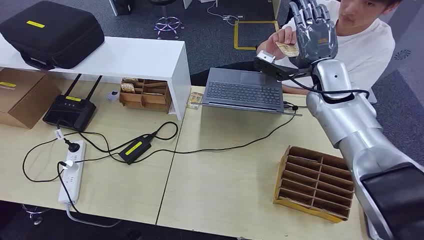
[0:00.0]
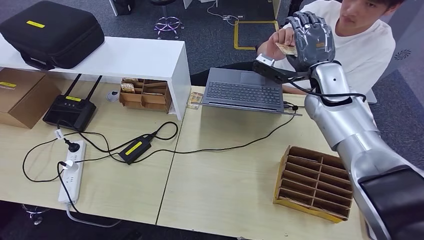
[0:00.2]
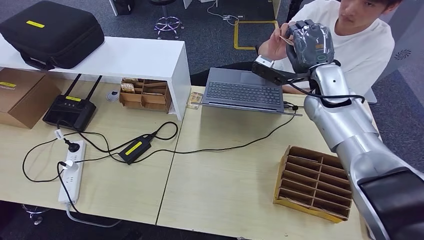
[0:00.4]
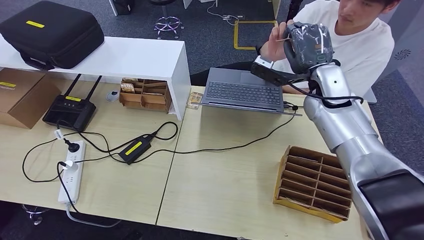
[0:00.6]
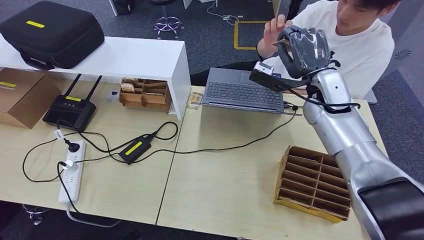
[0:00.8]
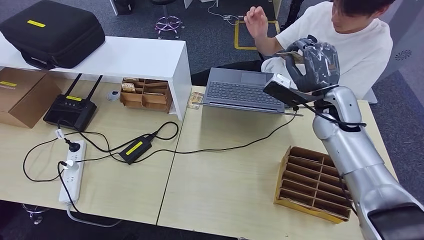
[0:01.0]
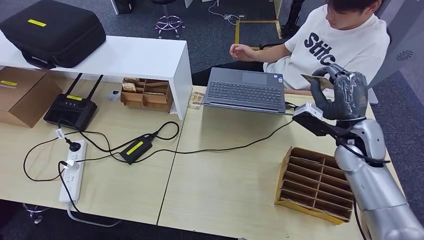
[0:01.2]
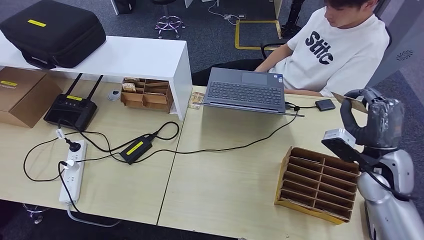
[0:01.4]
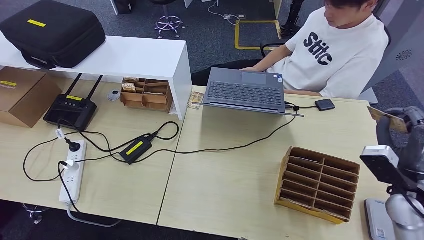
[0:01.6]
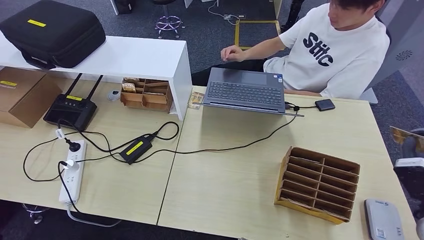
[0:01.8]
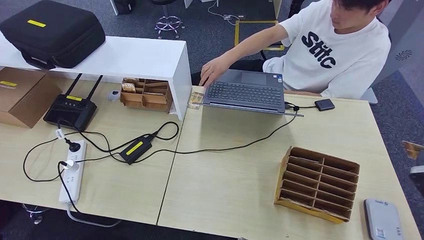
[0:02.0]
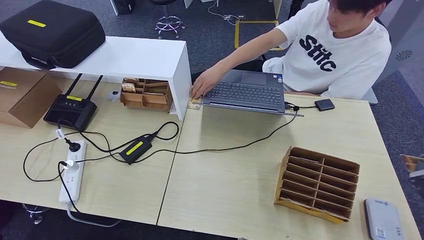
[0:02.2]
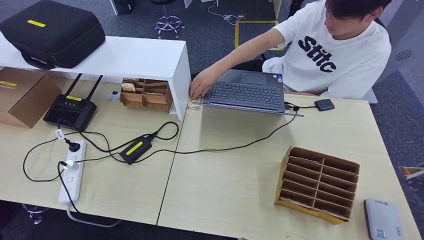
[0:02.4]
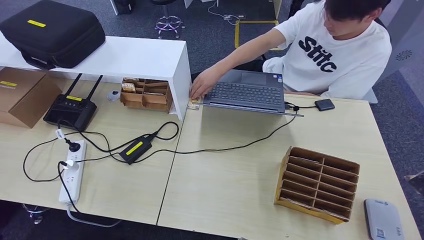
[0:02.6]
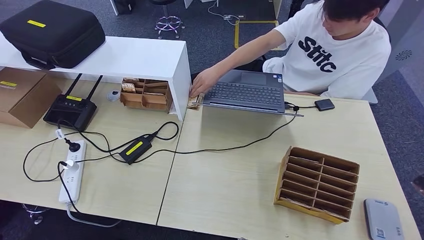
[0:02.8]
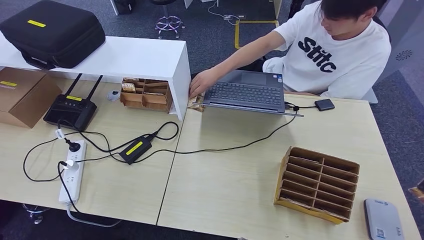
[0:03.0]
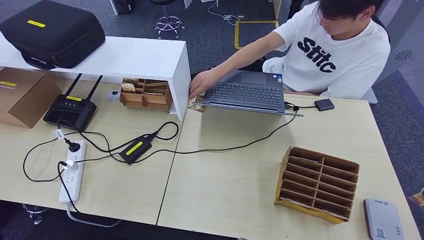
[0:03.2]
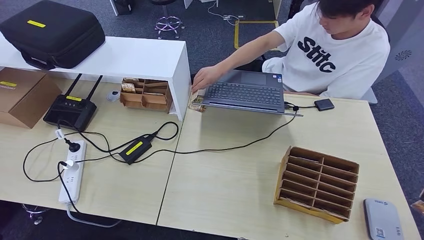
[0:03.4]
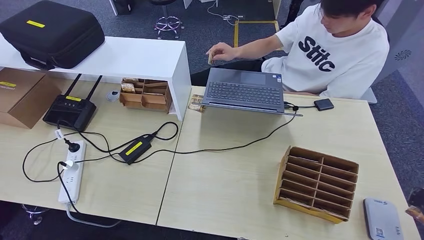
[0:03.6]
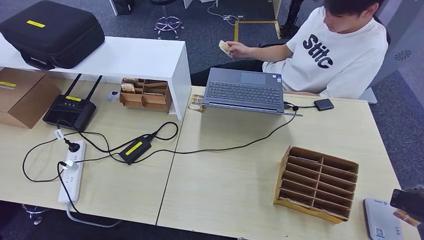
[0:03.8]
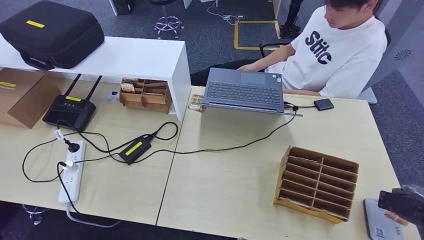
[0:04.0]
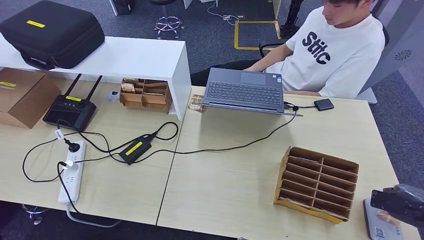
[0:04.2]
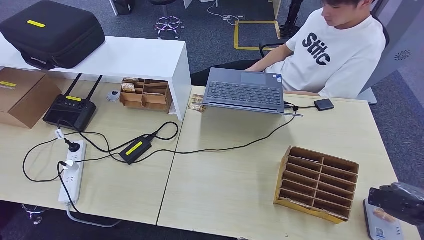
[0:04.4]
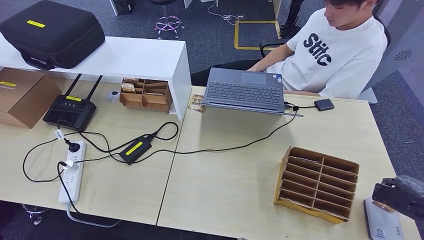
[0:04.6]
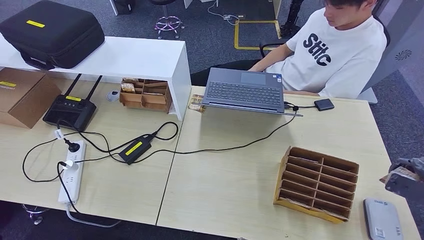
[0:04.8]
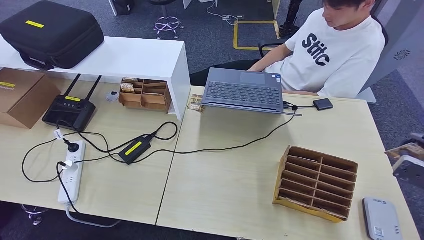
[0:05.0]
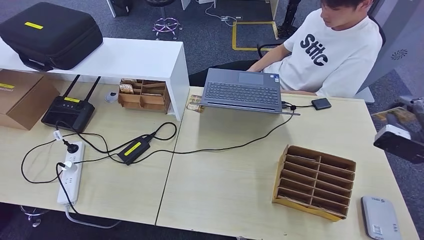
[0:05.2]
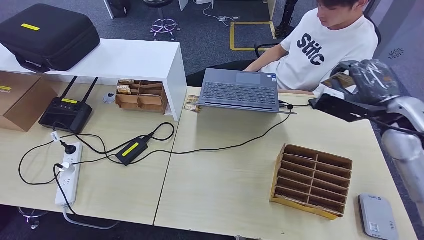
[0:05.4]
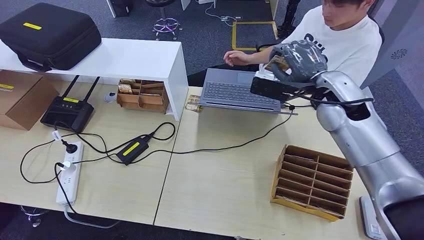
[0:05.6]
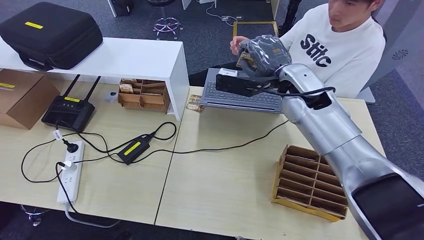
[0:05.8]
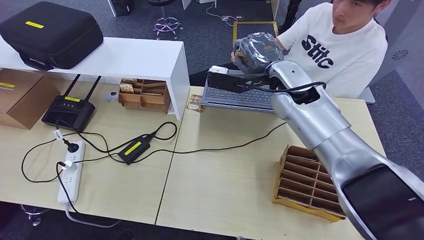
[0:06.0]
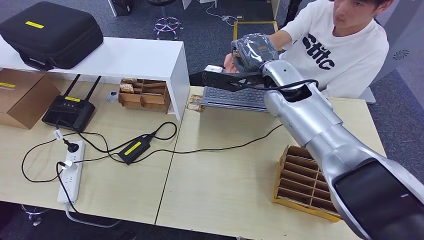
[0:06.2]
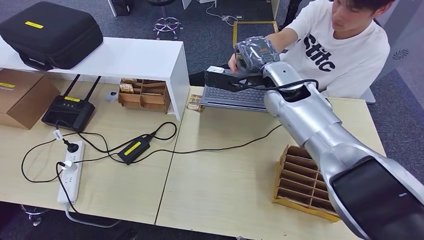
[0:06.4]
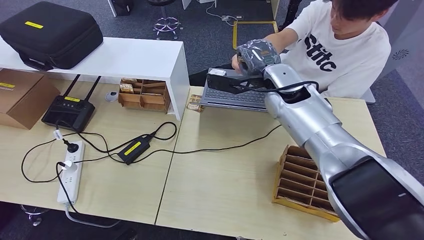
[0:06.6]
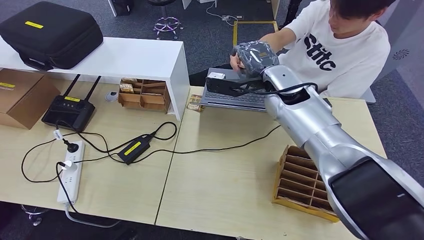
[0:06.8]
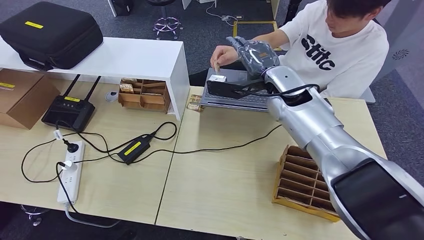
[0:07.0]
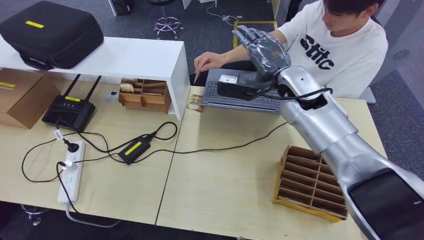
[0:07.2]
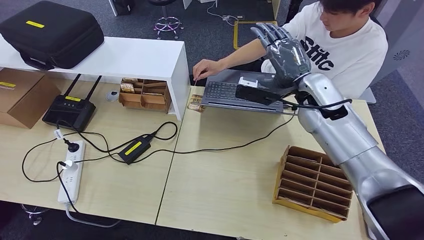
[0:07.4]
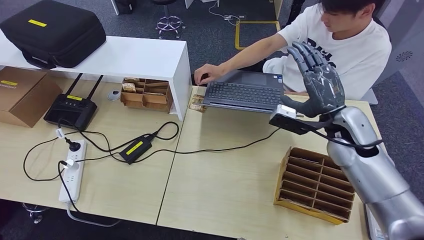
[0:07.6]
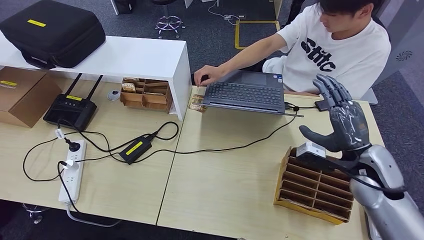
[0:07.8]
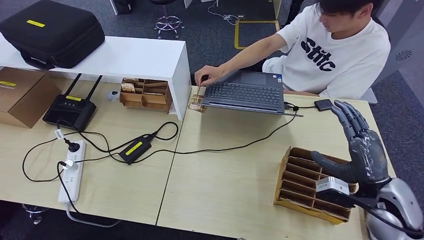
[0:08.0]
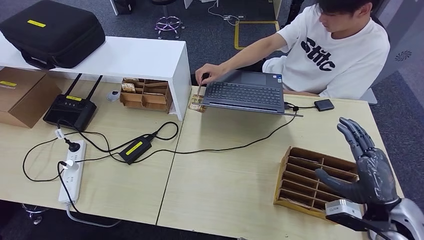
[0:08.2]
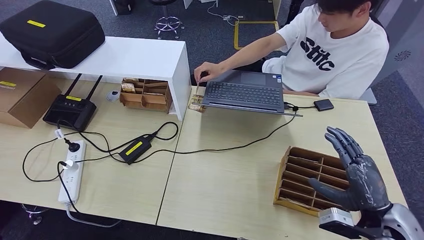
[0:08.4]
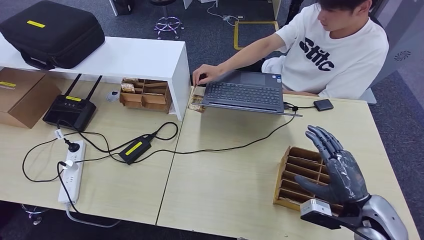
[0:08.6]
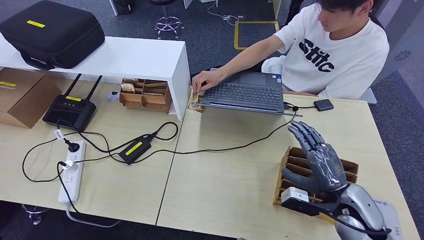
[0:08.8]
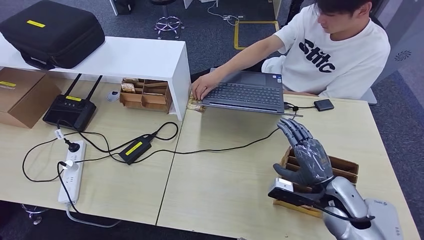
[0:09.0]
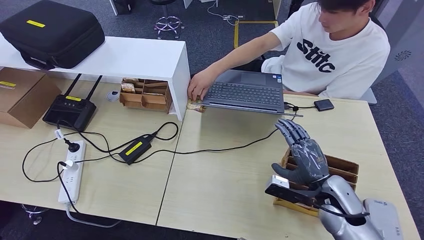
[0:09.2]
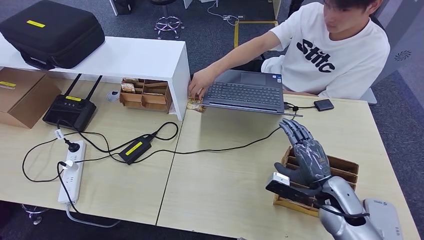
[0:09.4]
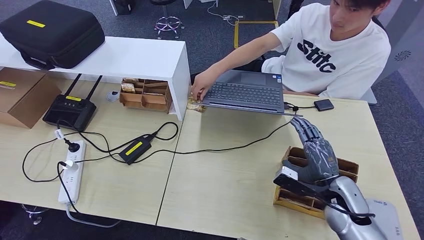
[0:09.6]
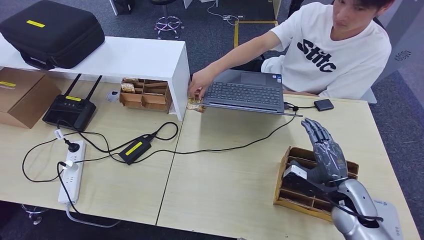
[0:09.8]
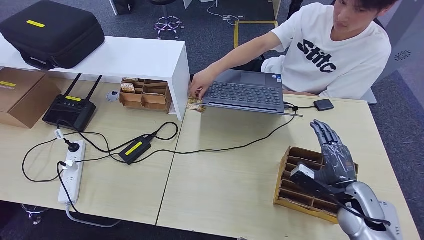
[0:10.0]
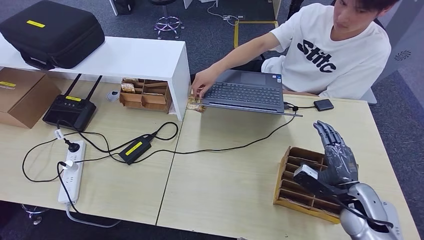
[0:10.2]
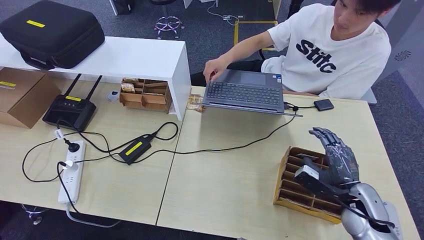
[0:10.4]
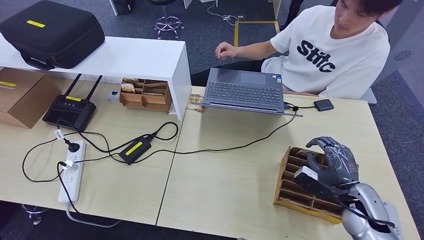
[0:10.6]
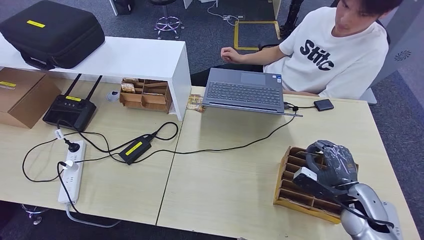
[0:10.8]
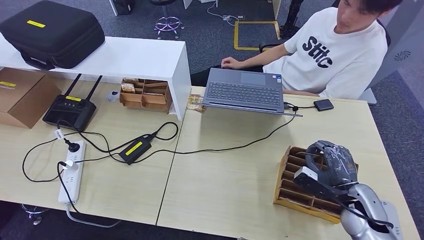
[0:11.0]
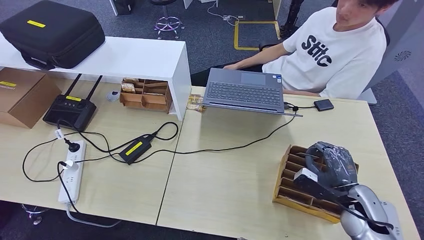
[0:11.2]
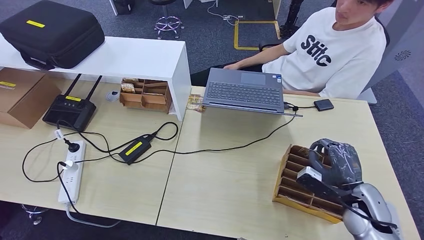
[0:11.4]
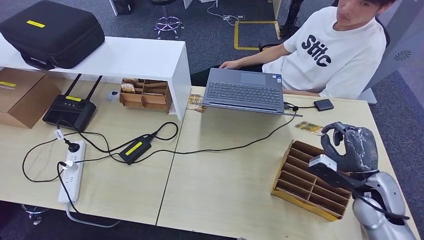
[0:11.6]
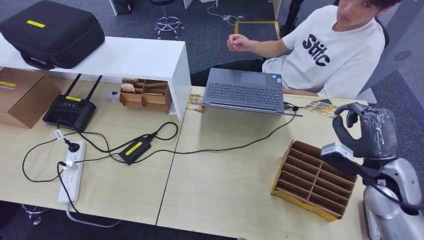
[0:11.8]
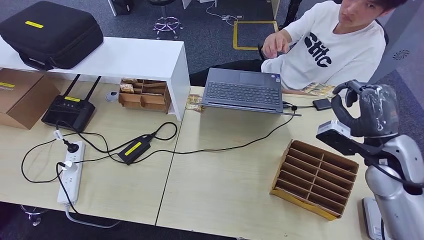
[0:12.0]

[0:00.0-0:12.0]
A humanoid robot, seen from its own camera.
Step, 0:00.0 to 0:01.6: Take the ID card from the person's hand.
Step, 0:01.8 to 0:04.8: Place the ID card on the card reader.
Step, 0:05.0 to 0:08.6: Hand the ID card to the person.
0:01.6 to 0:03.0: The right hand heads to the right and backward, covering about 20 cm.
0:03.0 to 0:04.4: The right hand shifts by some 5 cm.
0:07.6 to 0:09.0: The right hand moves downward and backward, approximately 15 cm.
0:09.0 to 0:10.4: The right hand is displaced to the right by about 5 cm.

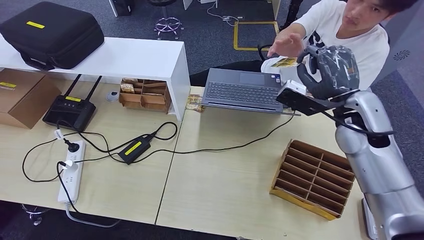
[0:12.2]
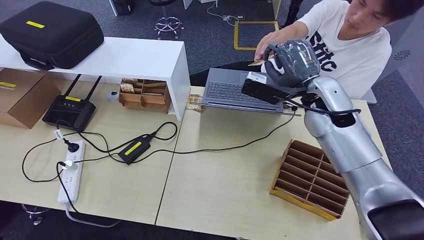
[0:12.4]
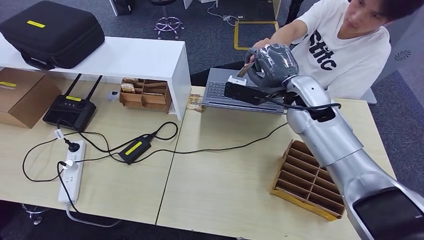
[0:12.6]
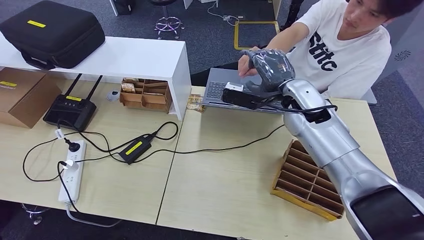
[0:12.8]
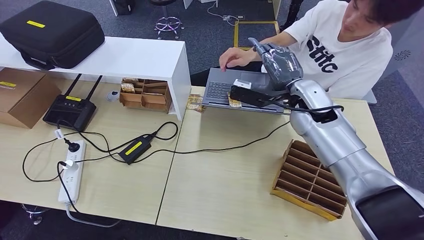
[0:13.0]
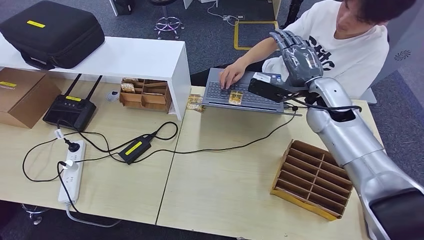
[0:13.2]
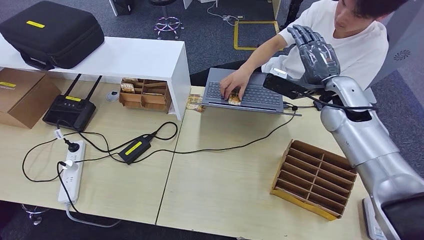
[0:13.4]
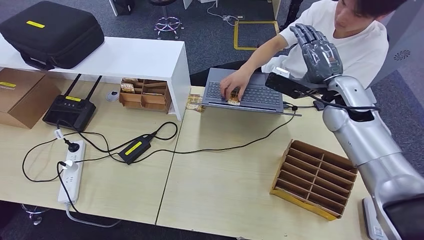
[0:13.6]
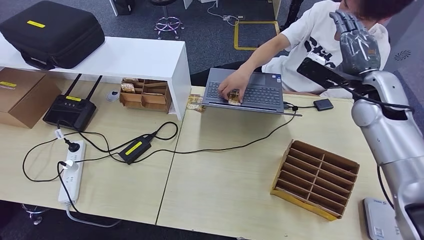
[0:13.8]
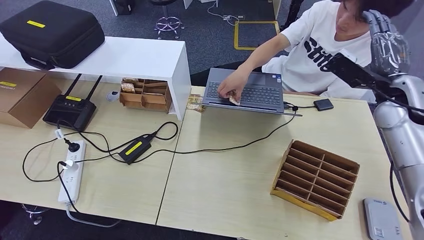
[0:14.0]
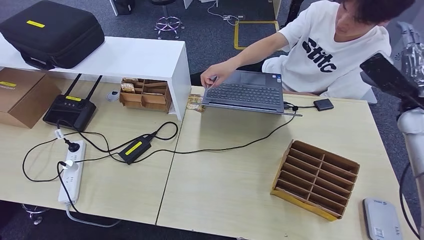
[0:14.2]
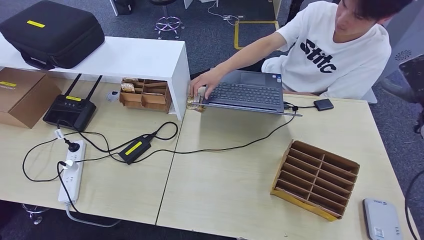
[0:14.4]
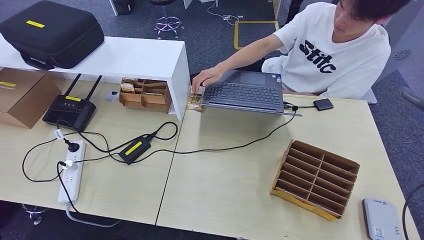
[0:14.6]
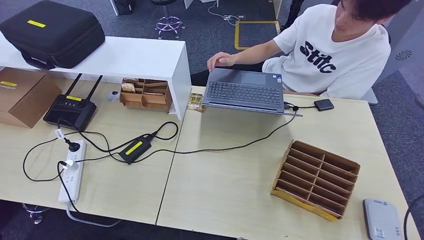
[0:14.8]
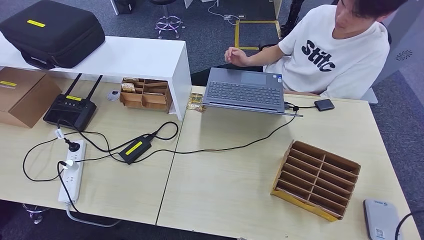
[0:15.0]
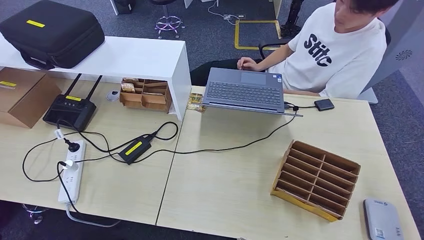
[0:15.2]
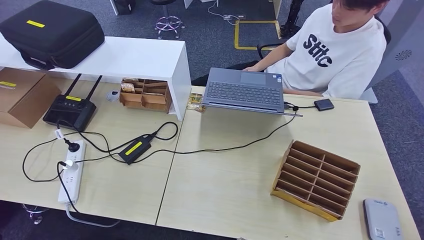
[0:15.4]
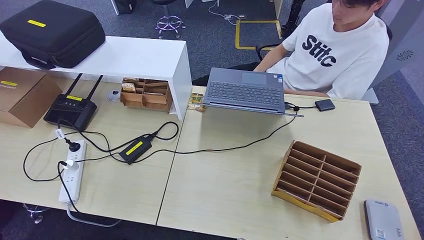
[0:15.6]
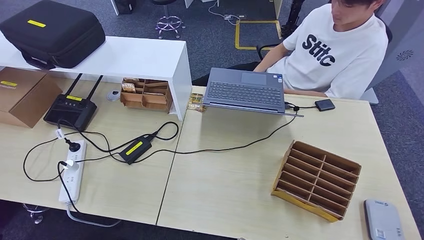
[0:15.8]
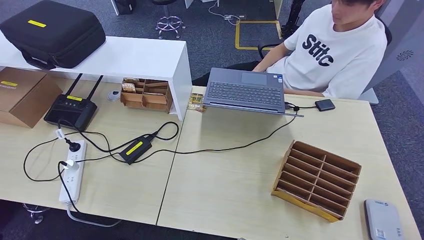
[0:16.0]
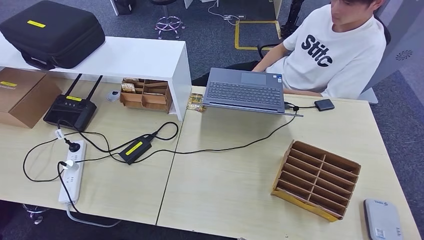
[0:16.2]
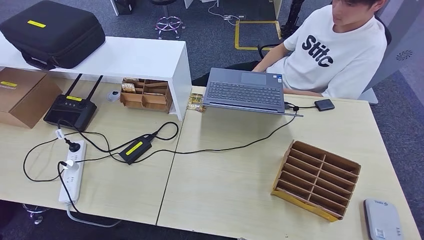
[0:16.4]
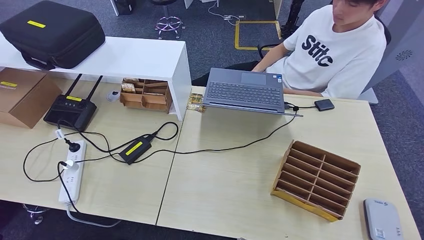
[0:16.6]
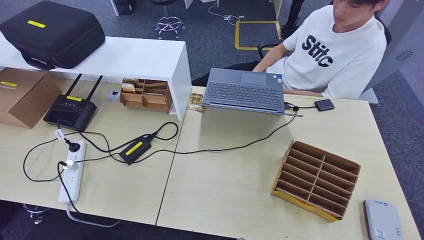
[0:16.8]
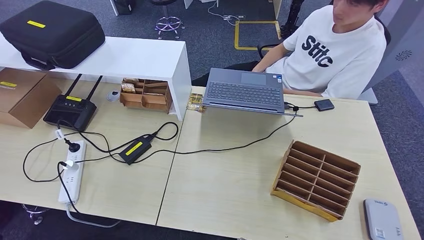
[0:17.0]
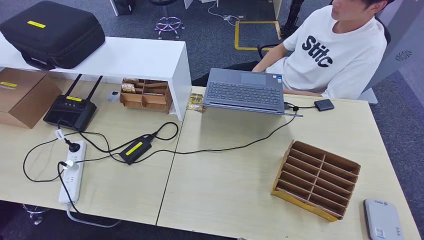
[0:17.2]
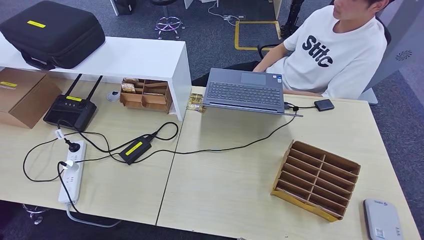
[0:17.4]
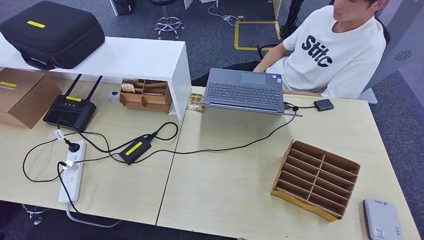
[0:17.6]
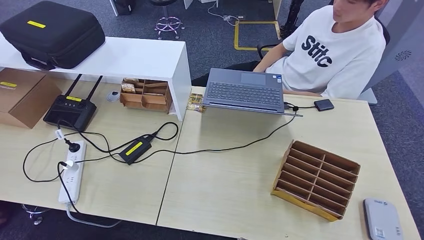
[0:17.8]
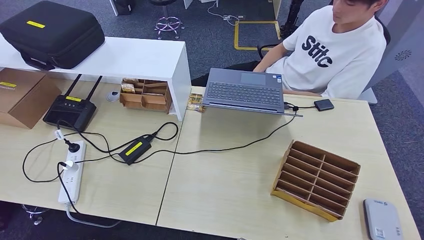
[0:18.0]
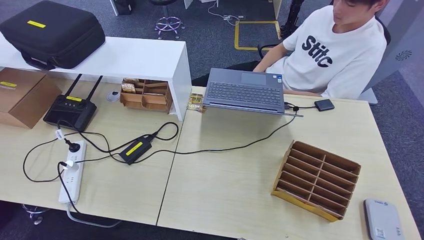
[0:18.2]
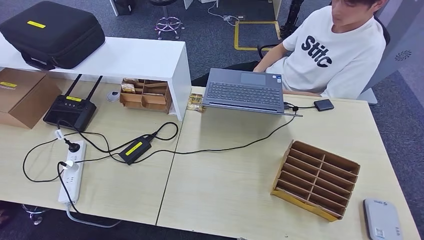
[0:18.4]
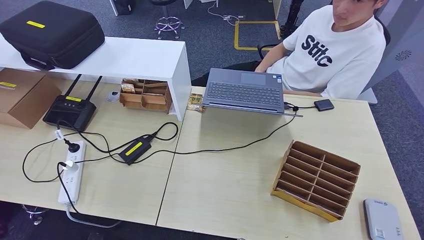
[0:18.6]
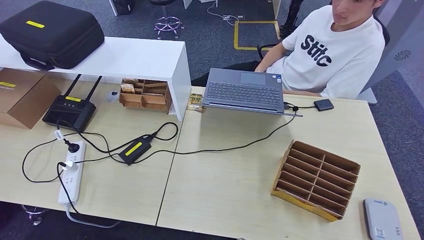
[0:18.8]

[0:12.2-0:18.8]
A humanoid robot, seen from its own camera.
Step, 0:12.2 to 0:16.6: Pick up the room key from the key card box.
0:12.2 to 0:13.8: The right hand travels forward by approximately 5 cm, and travels to the left and back again, roughly 10 cm each way.
0:13.8 to 0:15.4: The right hand is displaced to the right, backward and downward by about 40 cm.
0:15.4 to 0:17.2: The right hand heads backward, downward and to the left, covering approximately 35 cm.
0:17.2 to 0:18.8: The right hand shifts roughly 15 cm to the left.
